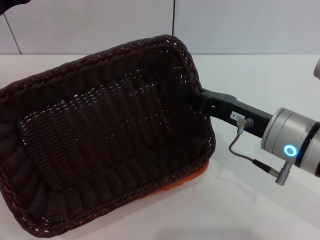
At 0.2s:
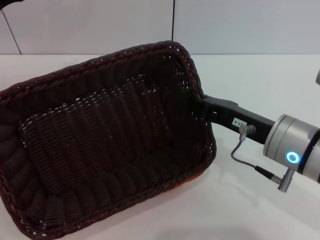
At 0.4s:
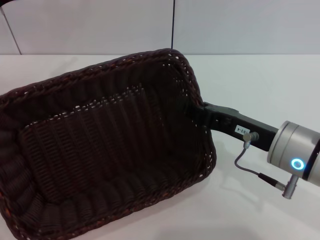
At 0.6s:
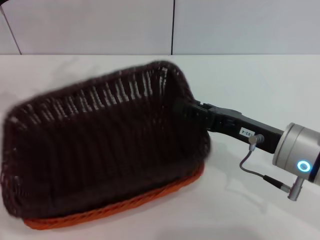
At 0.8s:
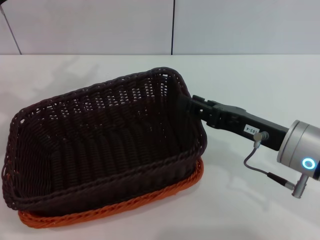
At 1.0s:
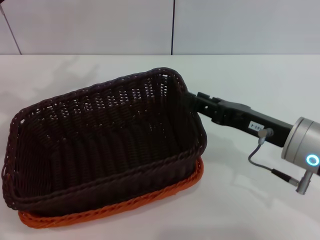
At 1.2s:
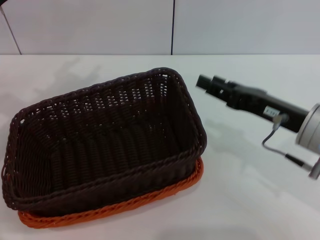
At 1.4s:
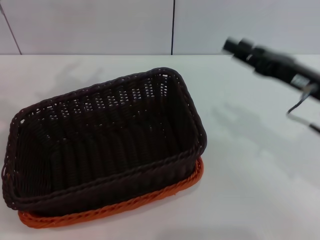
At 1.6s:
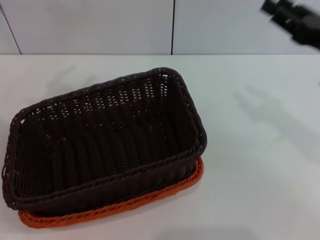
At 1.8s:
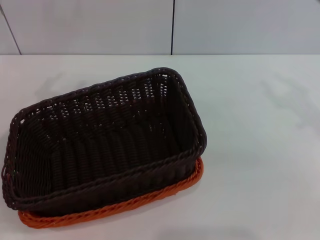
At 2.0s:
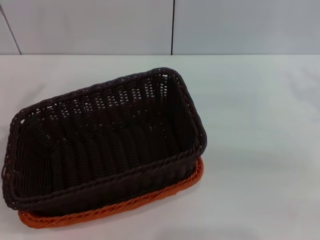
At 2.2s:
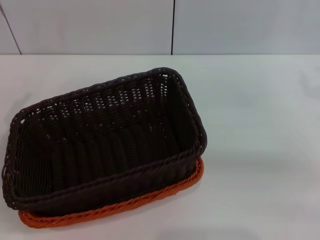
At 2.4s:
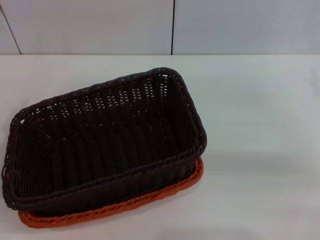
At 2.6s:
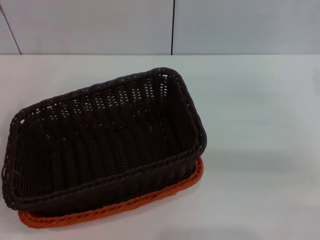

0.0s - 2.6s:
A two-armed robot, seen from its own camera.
0.0s - 1.2s: The right gripper opens up.
1.2s - 2.6s: The right gripper is displaced to the right and forward by about 15 cm.

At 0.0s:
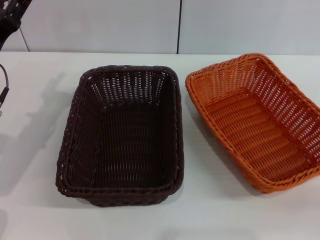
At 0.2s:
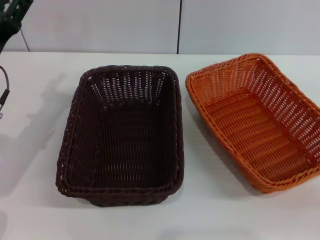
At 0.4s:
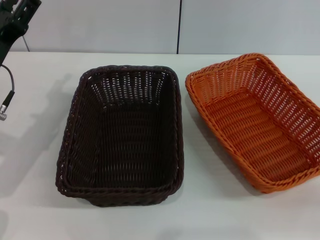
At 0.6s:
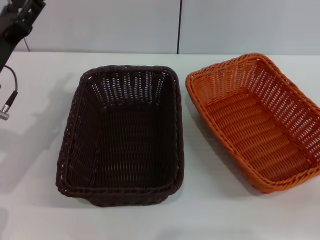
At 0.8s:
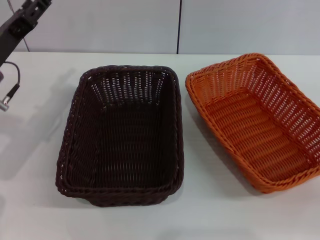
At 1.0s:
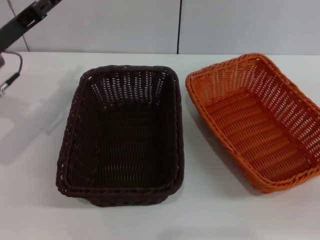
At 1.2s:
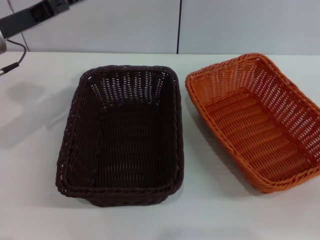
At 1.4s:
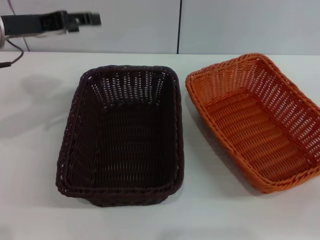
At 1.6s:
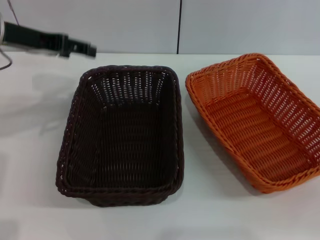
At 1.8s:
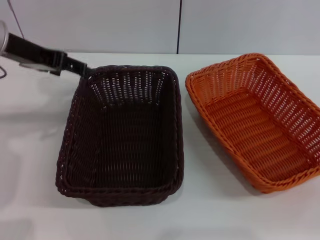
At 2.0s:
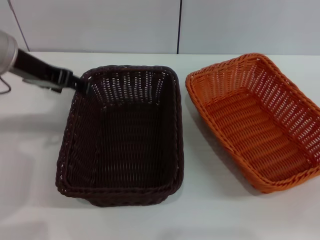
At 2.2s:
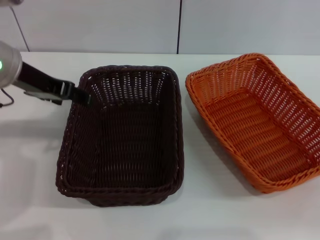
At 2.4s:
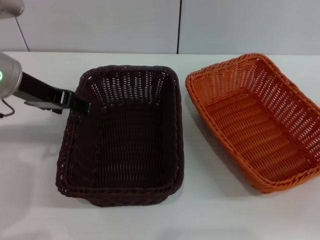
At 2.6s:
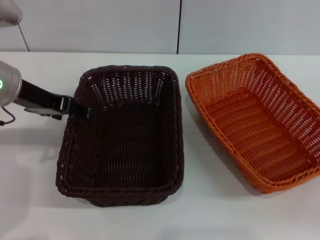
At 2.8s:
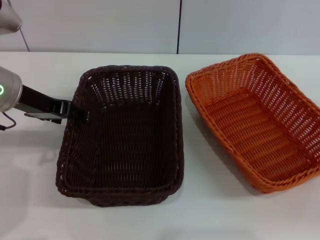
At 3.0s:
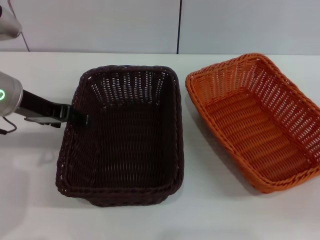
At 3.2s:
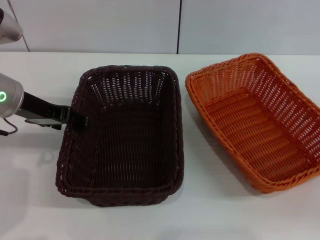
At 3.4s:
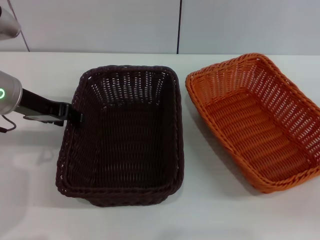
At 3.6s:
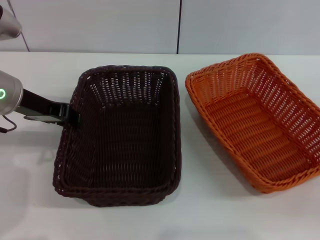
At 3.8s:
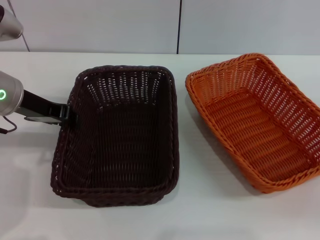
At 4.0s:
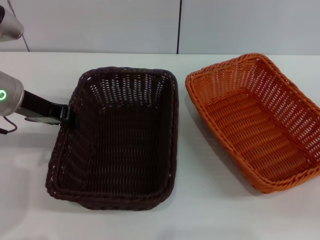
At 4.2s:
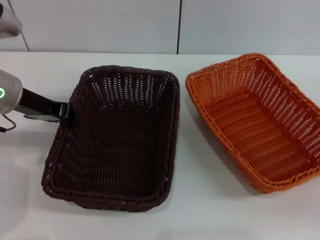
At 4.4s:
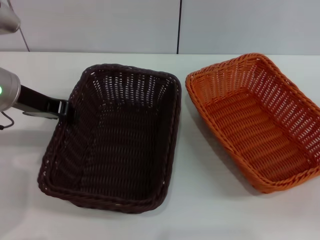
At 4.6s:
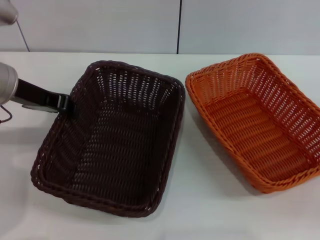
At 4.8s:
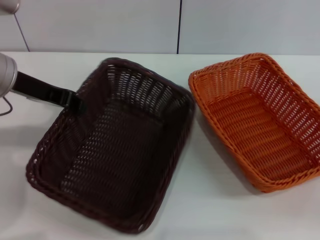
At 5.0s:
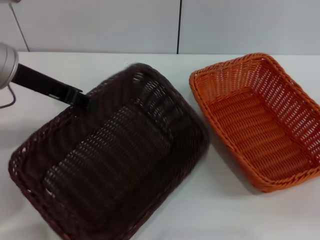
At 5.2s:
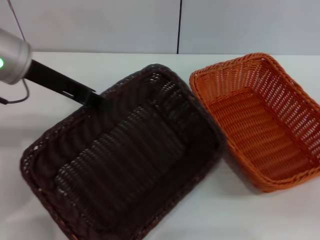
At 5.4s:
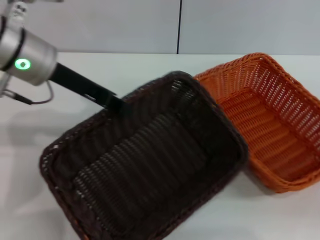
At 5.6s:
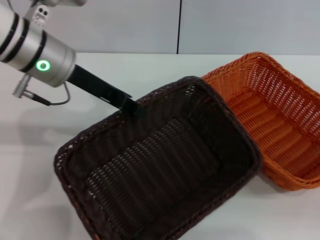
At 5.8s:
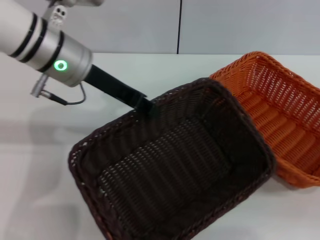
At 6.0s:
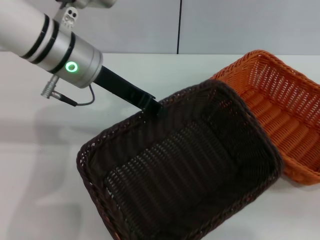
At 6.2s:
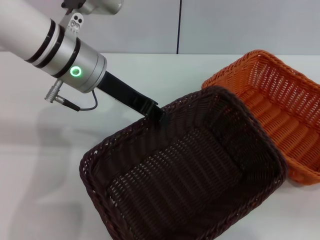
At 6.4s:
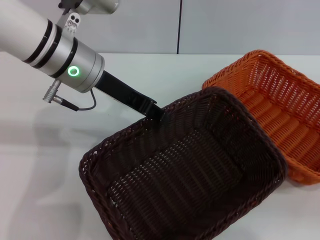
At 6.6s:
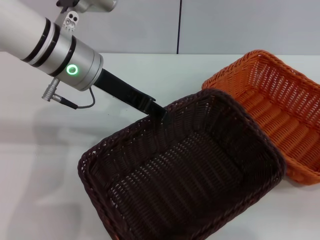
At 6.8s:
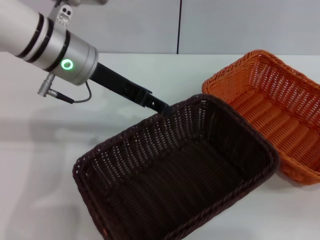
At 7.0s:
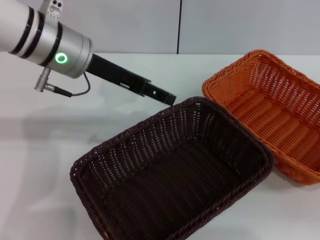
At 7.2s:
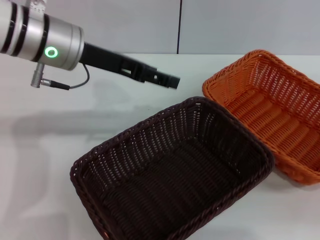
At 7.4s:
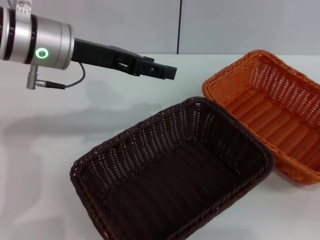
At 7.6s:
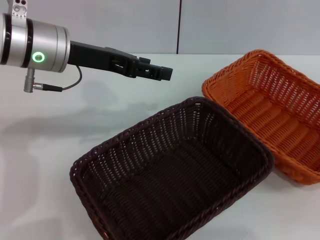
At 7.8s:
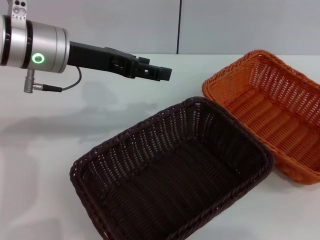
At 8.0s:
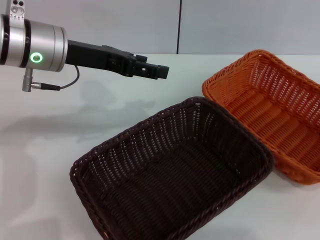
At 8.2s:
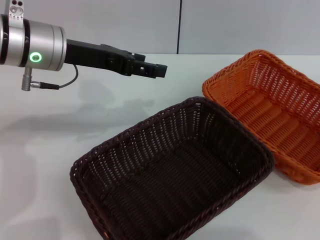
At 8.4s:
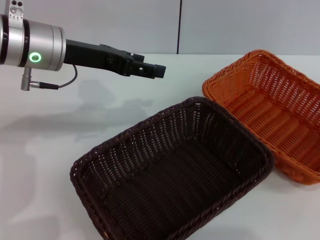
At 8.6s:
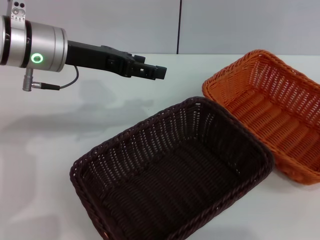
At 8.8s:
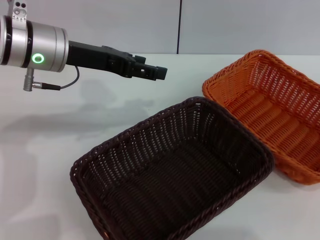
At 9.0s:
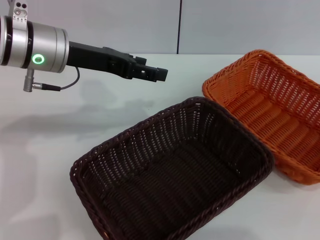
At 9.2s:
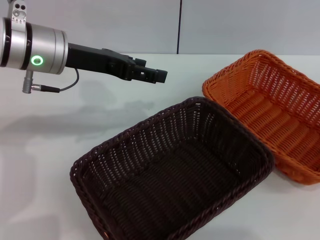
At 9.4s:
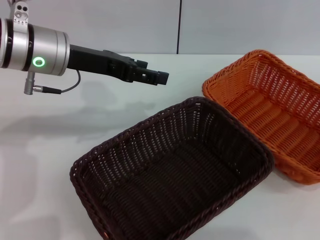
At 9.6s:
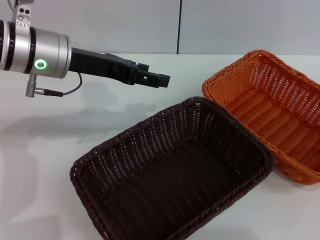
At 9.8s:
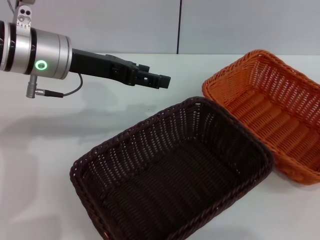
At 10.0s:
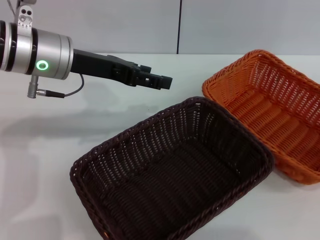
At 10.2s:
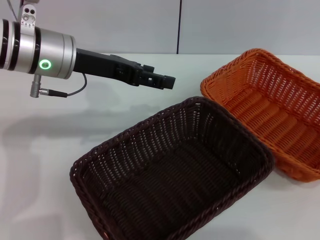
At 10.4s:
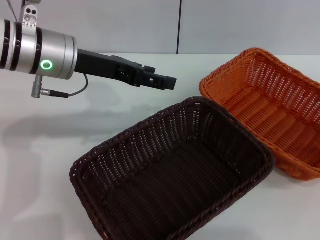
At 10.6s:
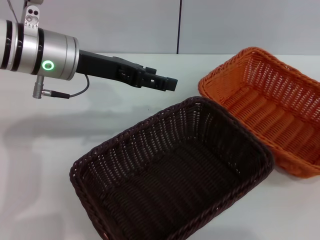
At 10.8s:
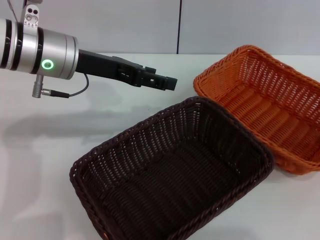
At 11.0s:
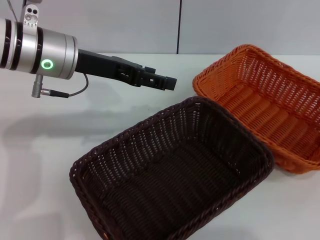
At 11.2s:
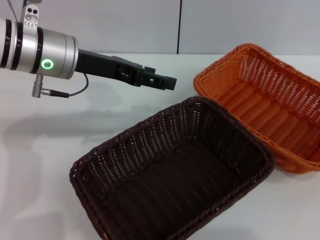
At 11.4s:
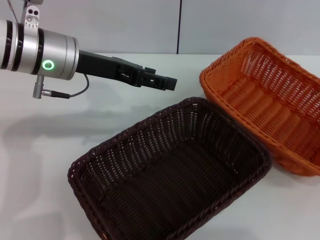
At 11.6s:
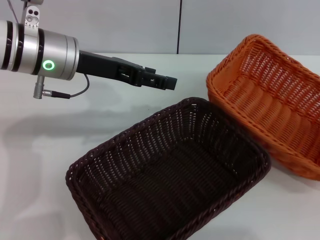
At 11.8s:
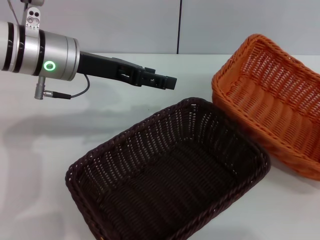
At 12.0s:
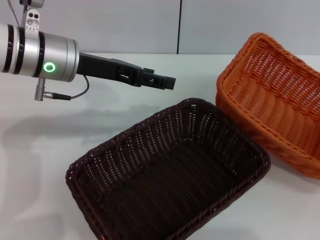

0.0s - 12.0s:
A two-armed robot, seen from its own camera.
Step, 0.0s - 5.0s: Pick up the dark basket with the left gripper.
Step, 5.2s - 6.8s: Place the dark basket in the center of view with the left gripper.
Step, 7.0s - 11.6s: Pick up the light basket with the right gripper.
0.0s - 1.6s: The left gripper goes about 15 cm upward and forward.
1.6s - 3.0s: The left gripper goes about 5 cm downward.
3.0s - 4.4s: The left gripper closes up.
4.4s - 6.0s: The left gripper moves to the right, approximately 10 cm.
6.0s - 7.6s: The left gripper opens up. Meanwhile the right gripper goes approximately 15 cm upward and to the right.
9.0s - 10.4s: The right gripper shifts by some 5 cm.
10.4s - 12.0s: The right gripper closes.

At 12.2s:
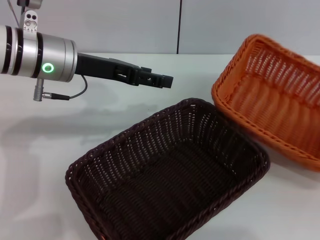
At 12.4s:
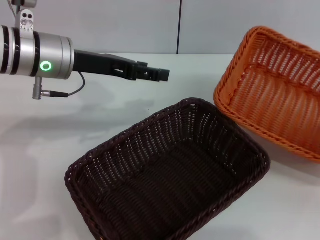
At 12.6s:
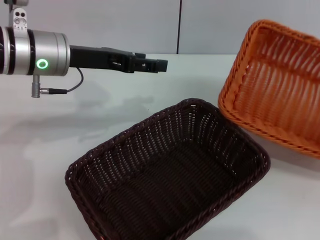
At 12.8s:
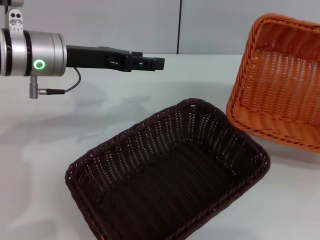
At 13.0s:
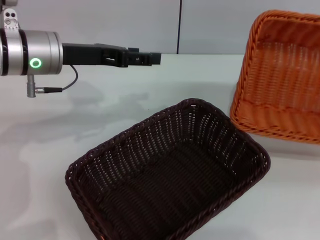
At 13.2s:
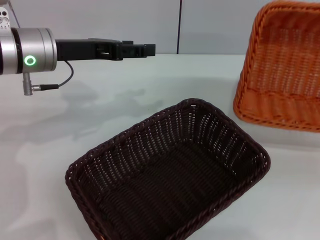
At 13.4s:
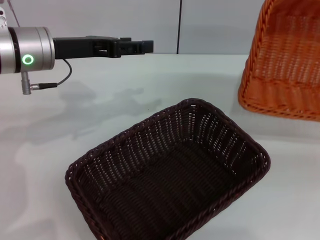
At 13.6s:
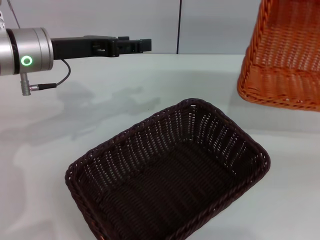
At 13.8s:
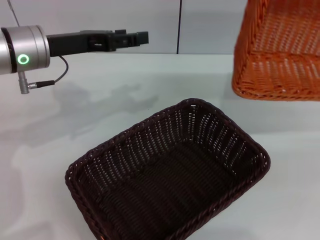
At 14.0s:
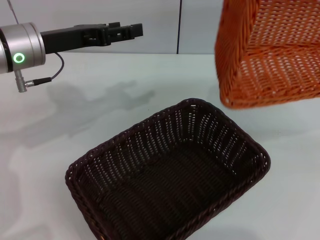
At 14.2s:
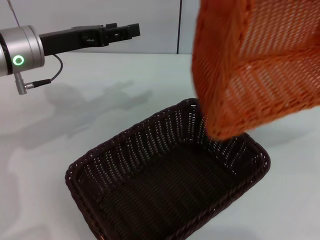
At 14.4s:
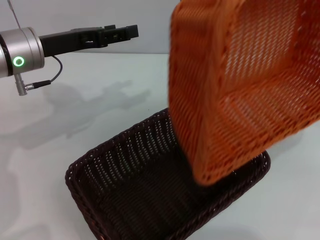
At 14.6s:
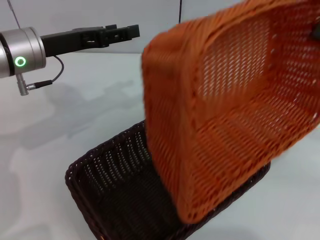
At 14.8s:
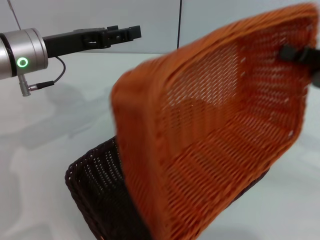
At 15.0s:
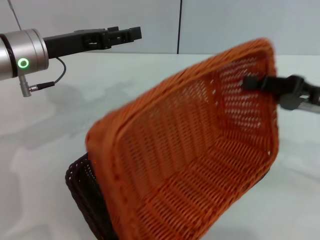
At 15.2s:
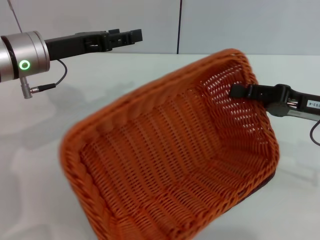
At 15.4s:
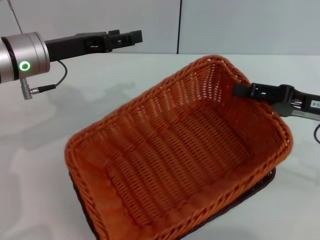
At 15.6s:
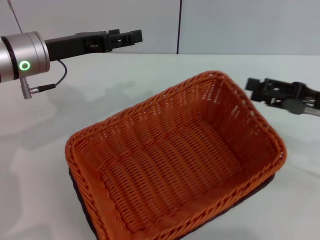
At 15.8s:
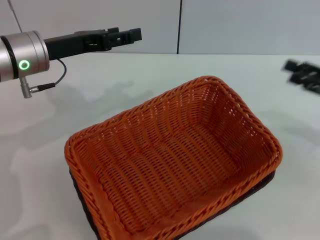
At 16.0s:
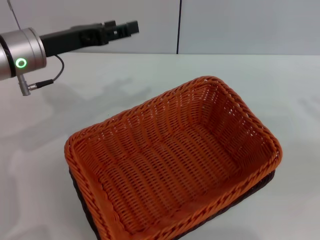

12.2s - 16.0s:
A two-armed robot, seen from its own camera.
Step, 12.2s - 15.6s: Place the light basket on the dark basket with the right gripper.
13.4s - 14.8s: The right gripper goes some 15 cm to the left.
14.8s - 16.0s: The right gripper heads to the right, covering about 5 cm, and opens.

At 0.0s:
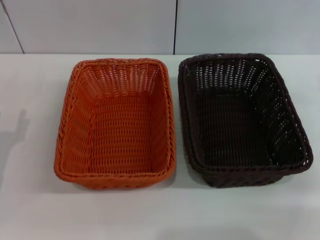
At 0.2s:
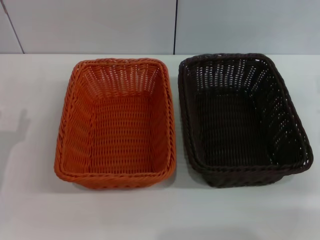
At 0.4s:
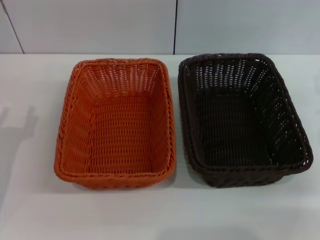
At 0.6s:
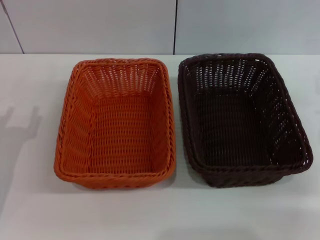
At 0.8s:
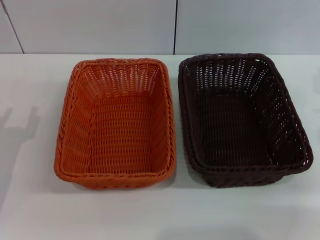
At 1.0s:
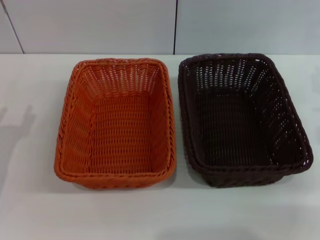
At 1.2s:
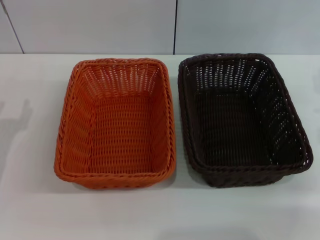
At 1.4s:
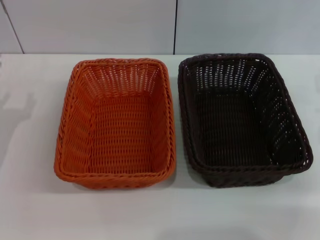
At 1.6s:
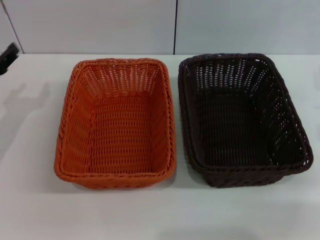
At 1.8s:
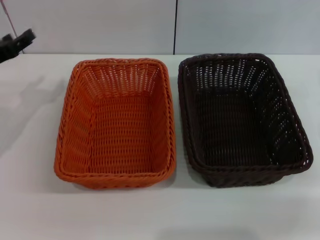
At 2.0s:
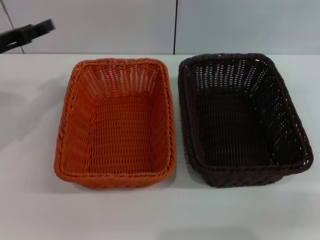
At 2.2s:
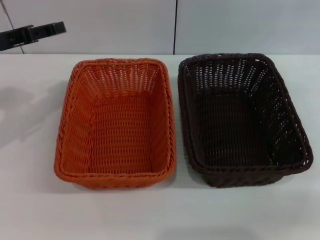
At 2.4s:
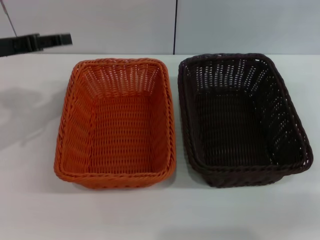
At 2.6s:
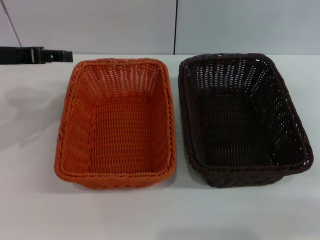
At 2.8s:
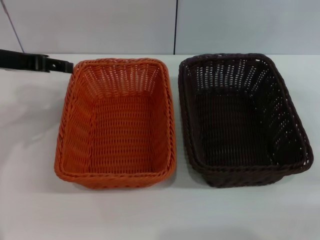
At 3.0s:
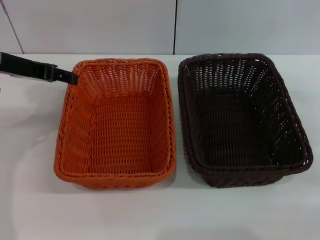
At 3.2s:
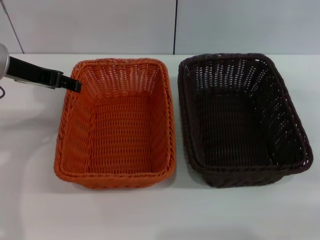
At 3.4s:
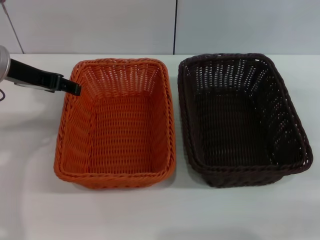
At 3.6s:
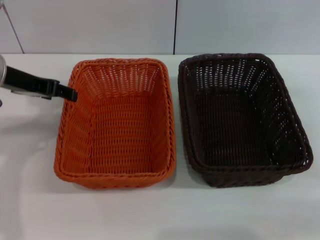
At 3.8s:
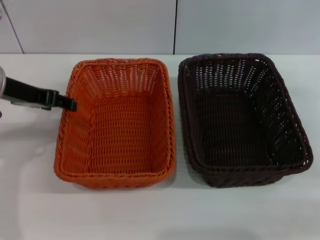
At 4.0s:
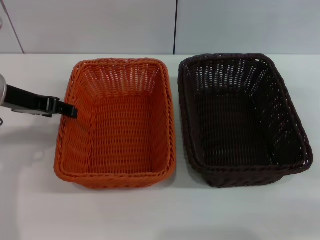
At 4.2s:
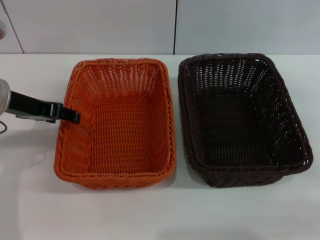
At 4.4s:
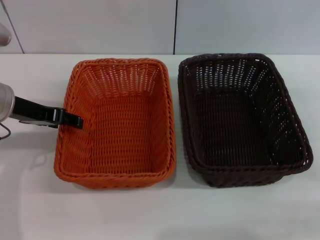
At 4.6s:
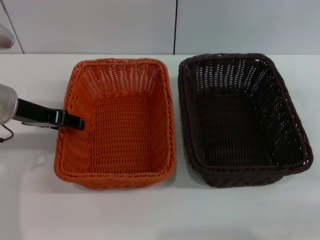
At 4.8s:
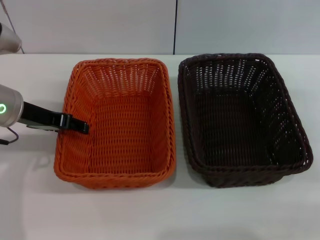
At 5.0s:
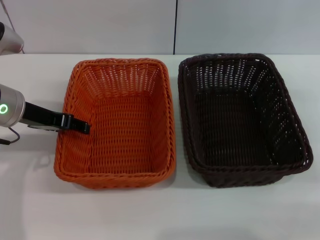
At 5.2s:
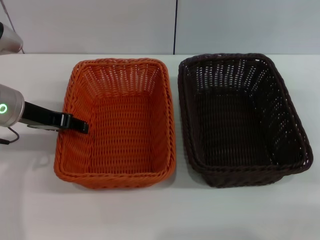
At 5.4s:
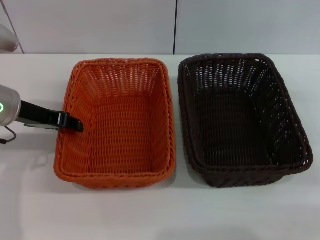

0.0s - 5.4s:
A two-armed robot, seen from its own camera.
1.4s - 2.8s: The left gripper moves upward and forward, about 15 cm.
2.8s - 4.0s: The grippers make only small movements.
4.0s - 5.4s: The grippers move only a little.
